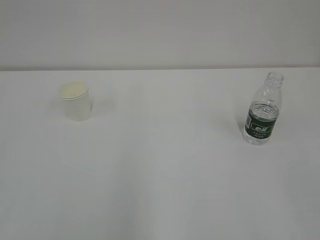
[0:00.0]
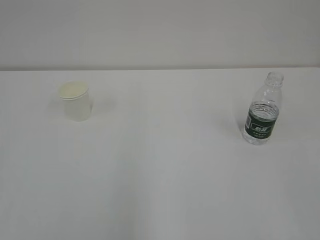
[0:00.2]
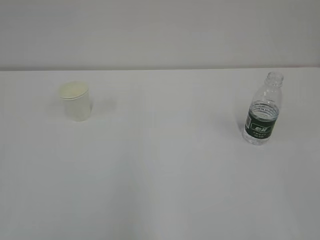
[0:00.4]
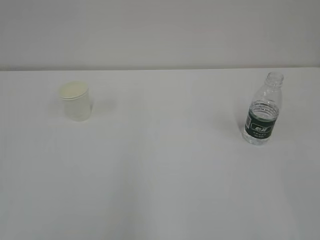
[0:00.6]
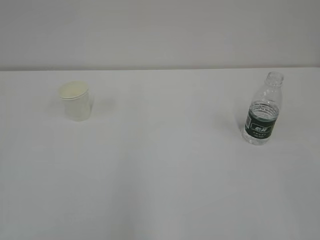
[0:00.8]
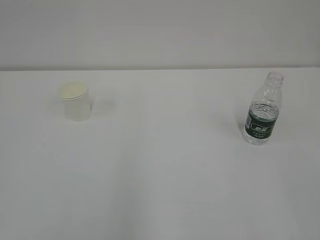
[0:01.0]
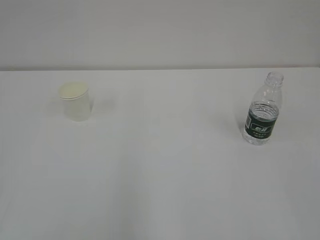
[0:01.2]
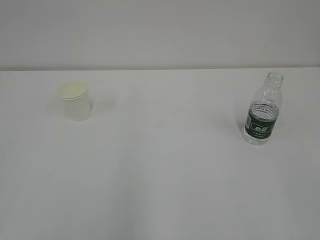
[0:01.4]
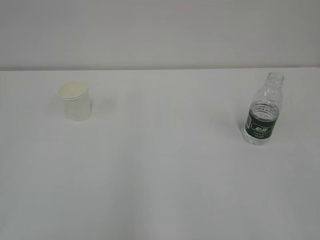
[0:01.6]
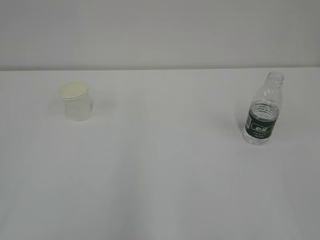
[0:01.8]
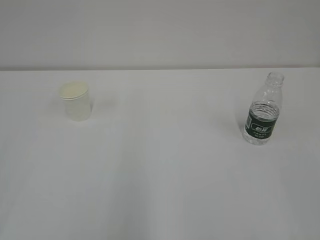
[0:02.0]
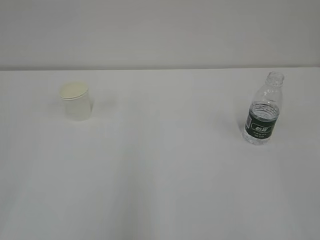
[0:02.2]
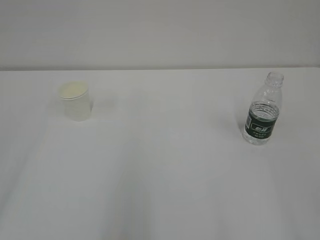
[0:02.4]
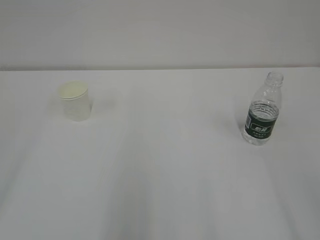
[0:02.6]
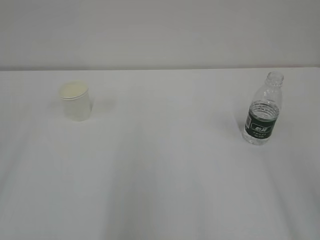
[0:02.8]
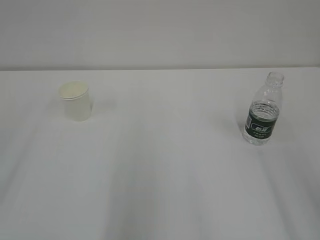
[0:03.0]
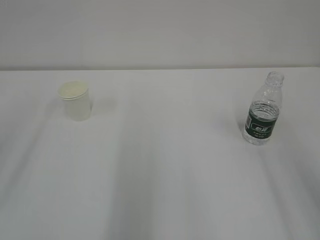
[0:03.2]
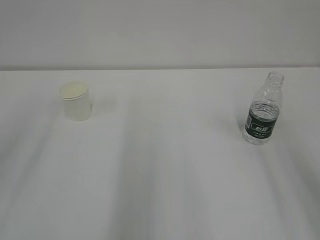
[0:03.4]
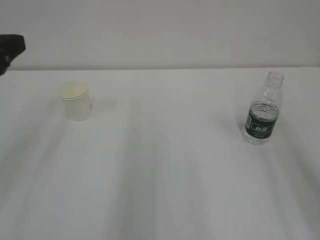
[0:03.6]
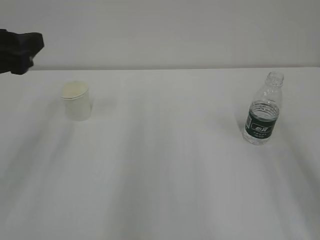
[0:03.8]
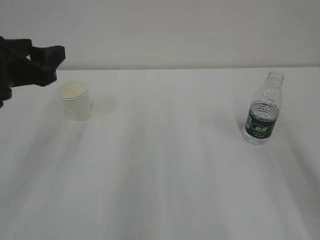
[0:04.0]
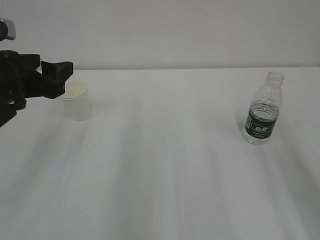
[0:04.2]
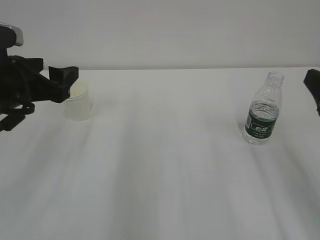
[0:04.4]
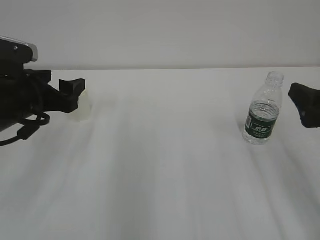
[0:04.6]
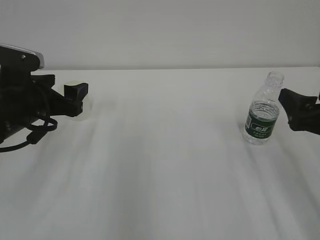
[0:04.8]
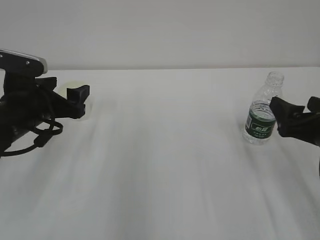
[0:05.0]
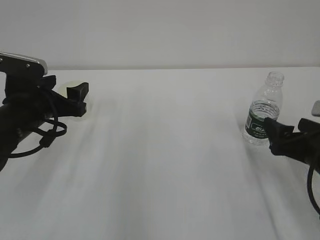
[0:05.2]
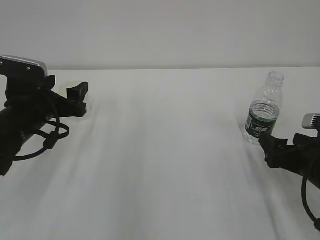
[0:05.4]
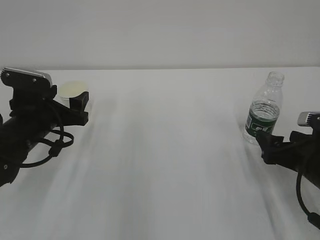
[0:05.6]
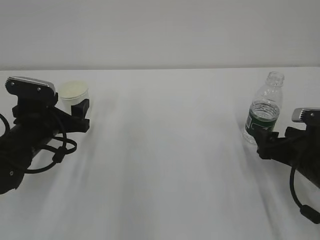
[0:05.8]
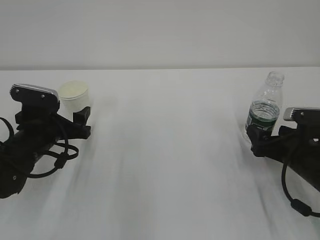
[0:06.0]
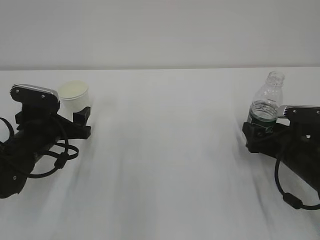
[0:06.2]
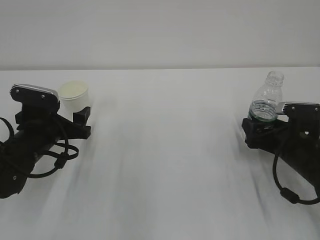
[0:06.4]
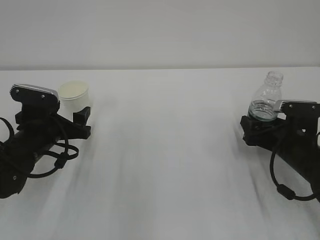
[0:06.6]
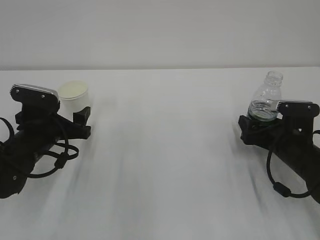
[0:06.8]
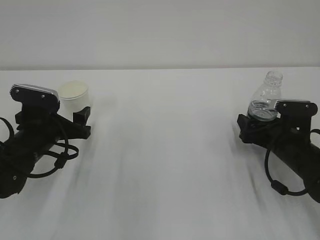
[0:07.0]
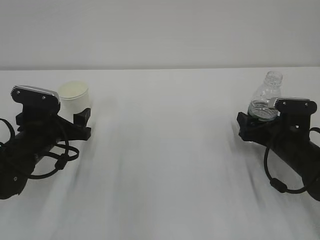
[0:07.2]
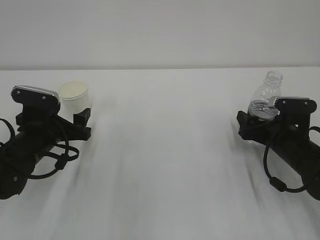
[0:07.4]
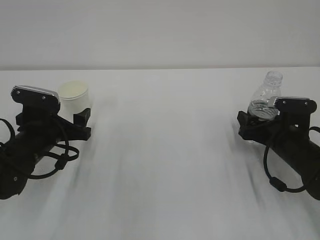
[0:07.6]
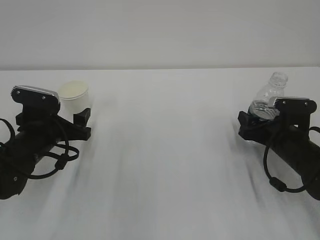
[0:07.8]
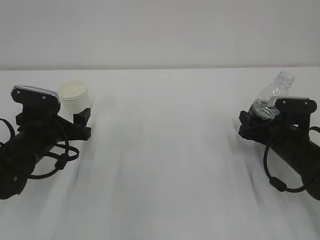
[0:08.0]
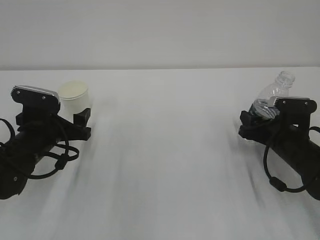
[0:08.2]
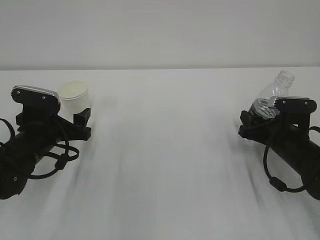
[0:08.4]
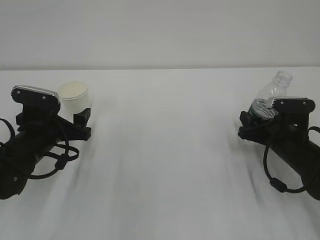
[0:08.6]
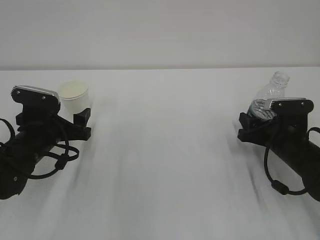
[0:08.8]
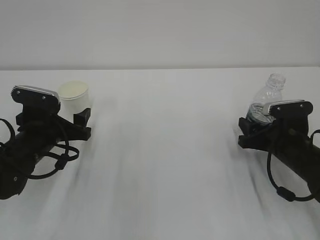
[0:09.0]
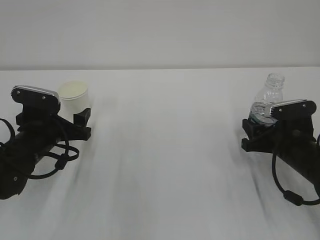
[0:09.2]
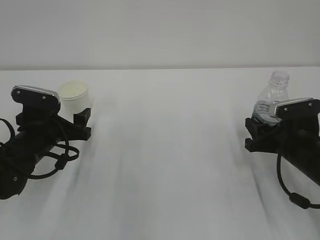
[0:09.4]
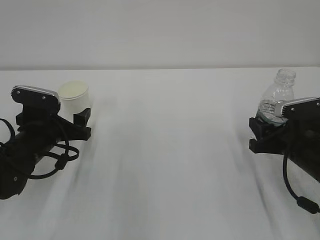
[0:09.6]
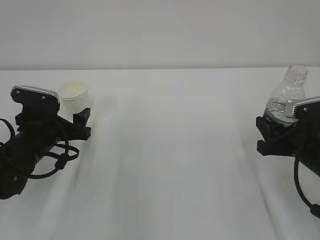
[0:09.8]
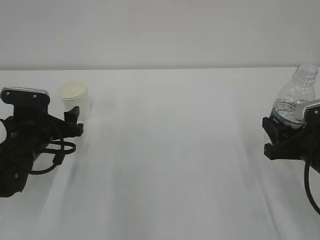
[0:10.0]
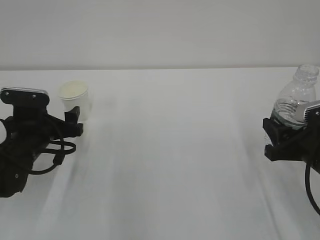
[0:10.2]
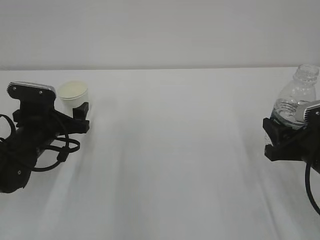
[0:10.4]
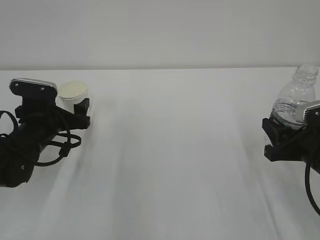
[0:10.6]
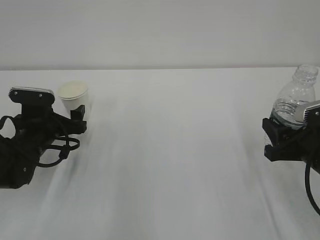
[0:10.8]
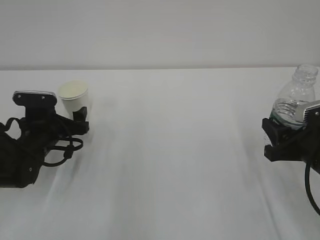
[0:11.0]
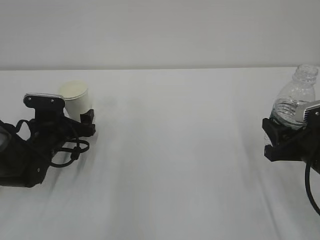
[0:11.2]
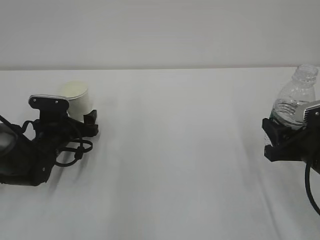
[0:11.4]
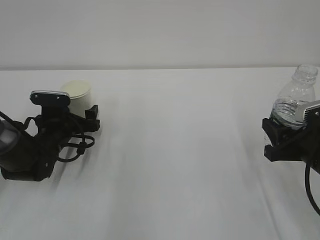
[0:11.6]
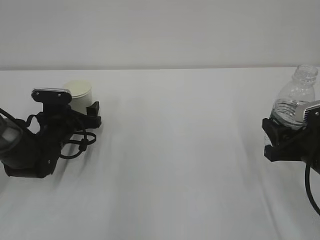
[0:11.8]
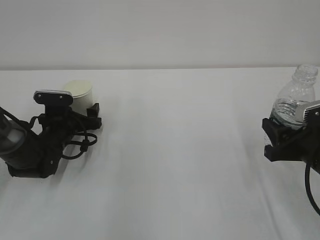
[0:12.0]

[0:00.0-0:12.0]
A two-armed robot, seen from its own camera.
0:03.0 to 0:04.4: The left gripper goes some 20 cm forward, downward and to the right.
0:04.4 to 0:06.0: The left gripper goes some 15 cm downward. The right gripper shifts approximately 20 cm downward and forward.
0:06.0 to 0:07.6: The right gripper shifts roughly 5 cm forward.
0:07.6 to 0:09.0: The right gripper closes.
0:09.0 to 0:10.4: The left gripper opens its fingers. Meanwhile the right gripper is displaced backward and upward by approximately 10 cm.
0:10.4 to 0:12.0: The left gripper shifts about 10 cm forward and downward.

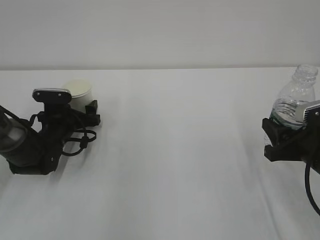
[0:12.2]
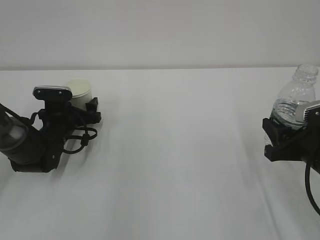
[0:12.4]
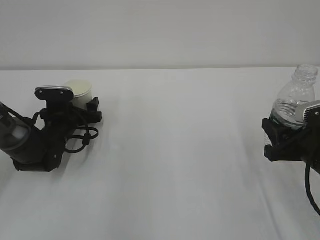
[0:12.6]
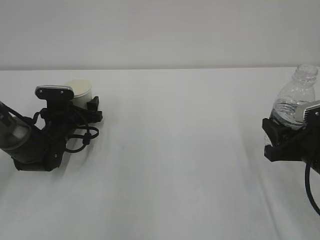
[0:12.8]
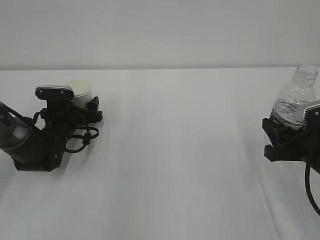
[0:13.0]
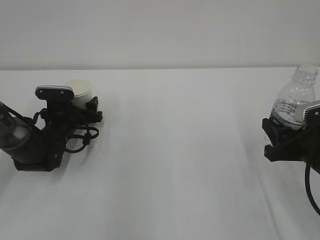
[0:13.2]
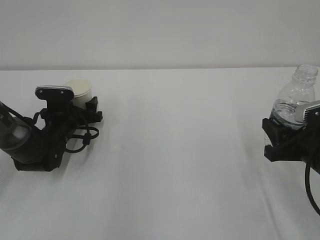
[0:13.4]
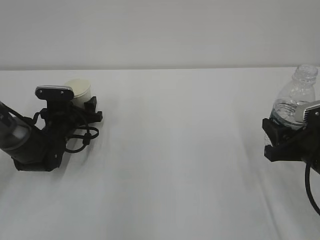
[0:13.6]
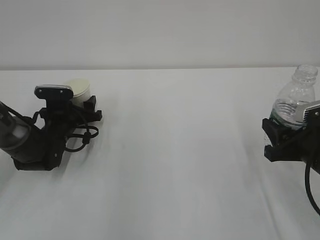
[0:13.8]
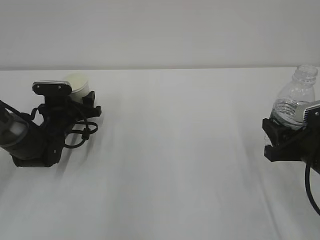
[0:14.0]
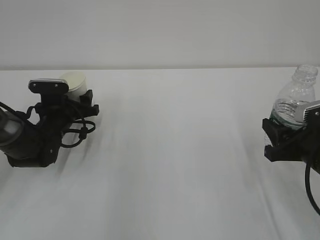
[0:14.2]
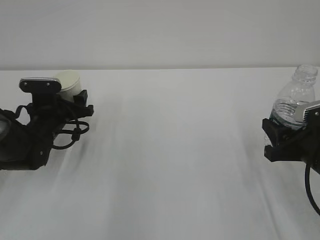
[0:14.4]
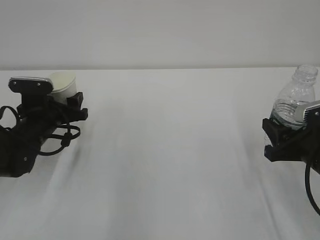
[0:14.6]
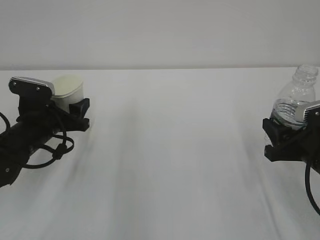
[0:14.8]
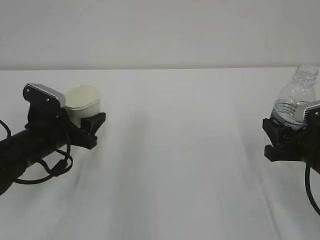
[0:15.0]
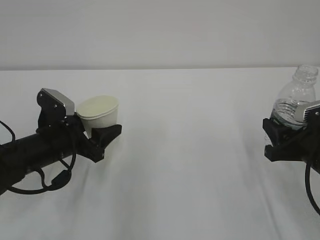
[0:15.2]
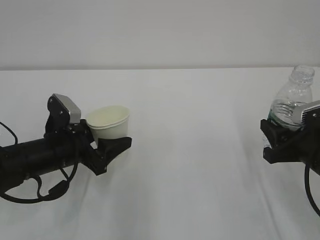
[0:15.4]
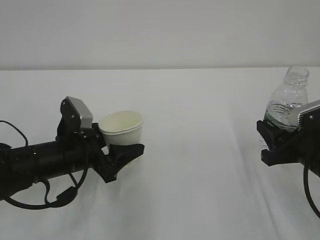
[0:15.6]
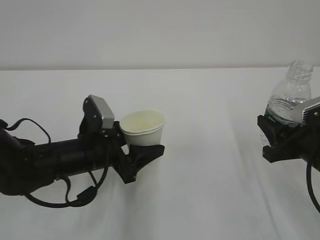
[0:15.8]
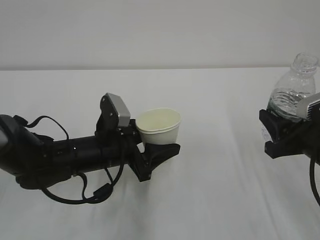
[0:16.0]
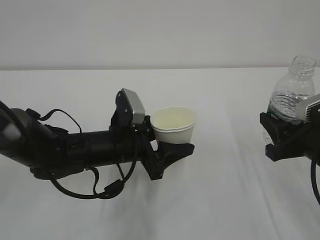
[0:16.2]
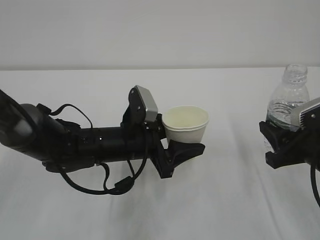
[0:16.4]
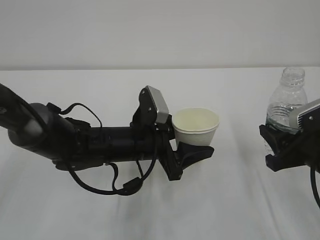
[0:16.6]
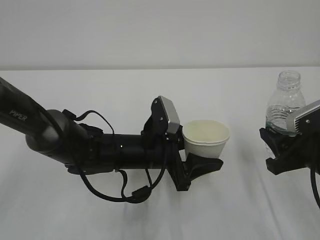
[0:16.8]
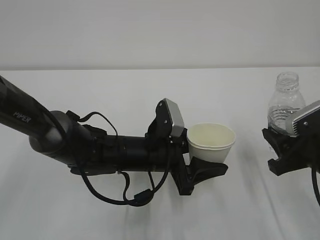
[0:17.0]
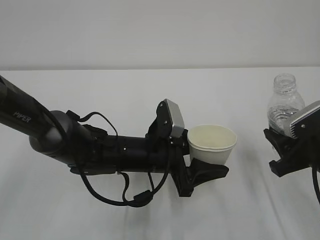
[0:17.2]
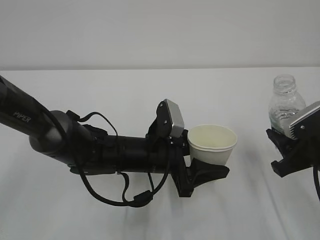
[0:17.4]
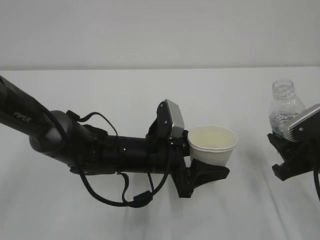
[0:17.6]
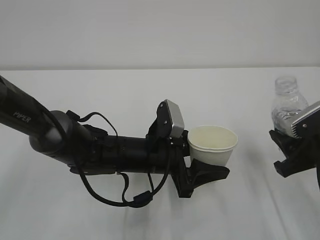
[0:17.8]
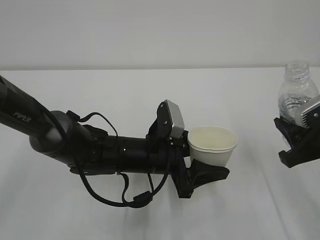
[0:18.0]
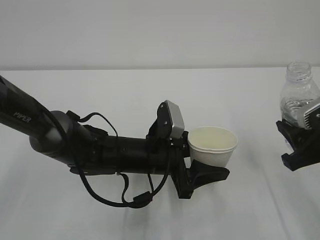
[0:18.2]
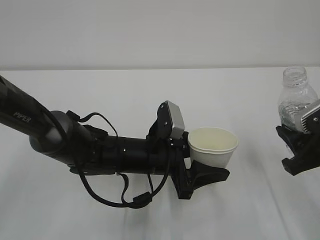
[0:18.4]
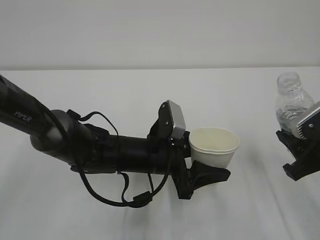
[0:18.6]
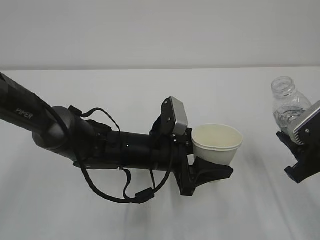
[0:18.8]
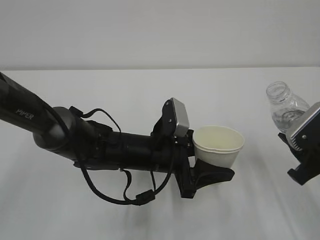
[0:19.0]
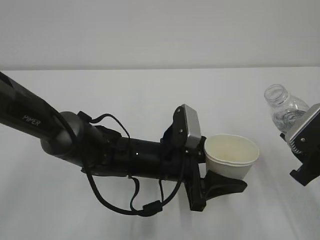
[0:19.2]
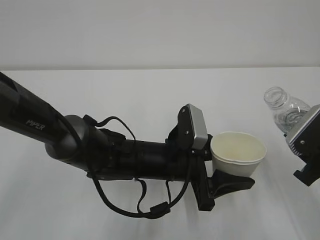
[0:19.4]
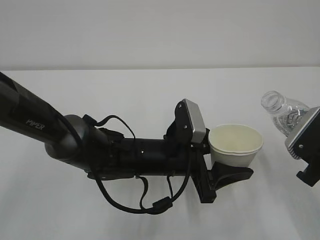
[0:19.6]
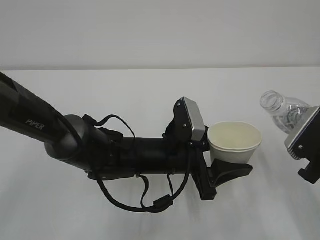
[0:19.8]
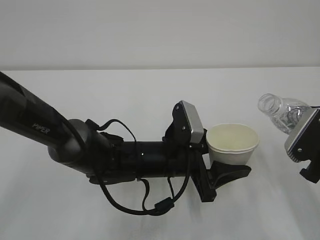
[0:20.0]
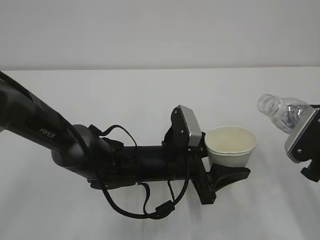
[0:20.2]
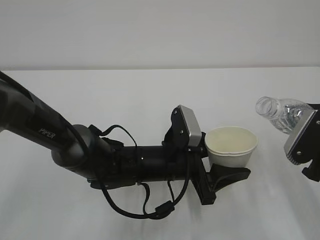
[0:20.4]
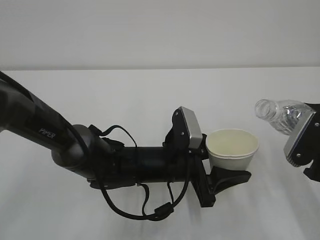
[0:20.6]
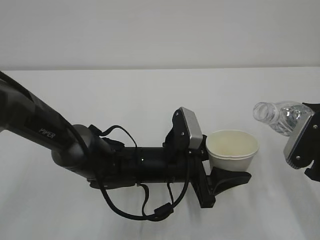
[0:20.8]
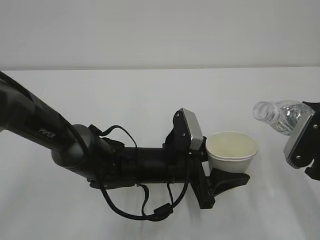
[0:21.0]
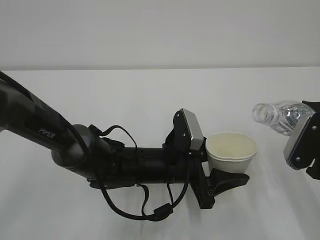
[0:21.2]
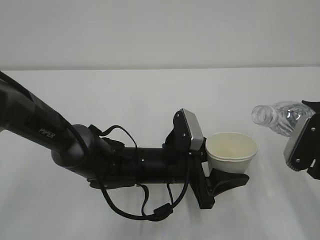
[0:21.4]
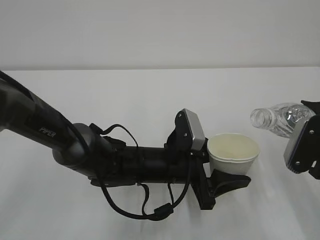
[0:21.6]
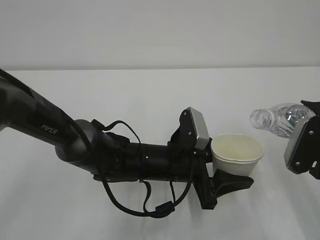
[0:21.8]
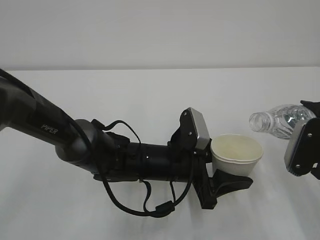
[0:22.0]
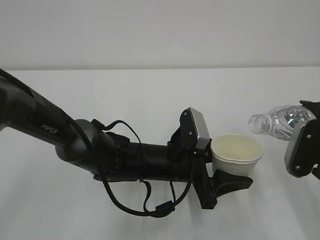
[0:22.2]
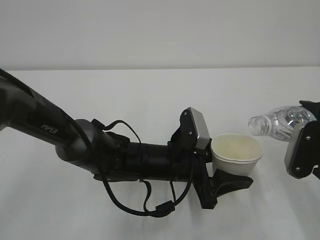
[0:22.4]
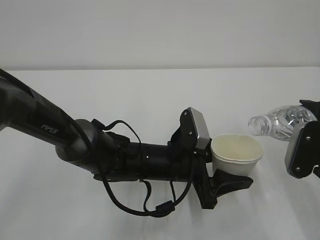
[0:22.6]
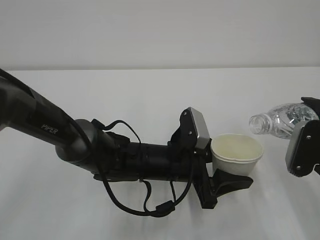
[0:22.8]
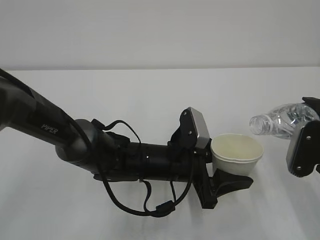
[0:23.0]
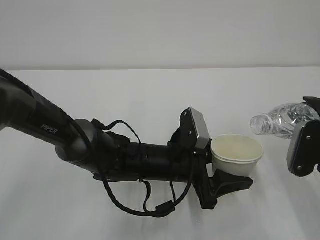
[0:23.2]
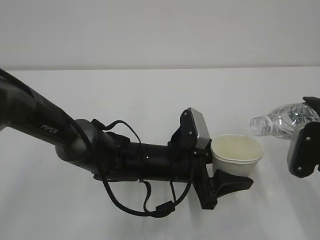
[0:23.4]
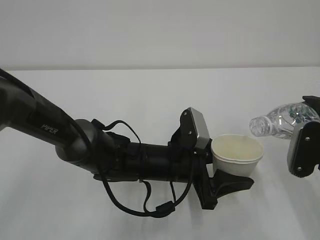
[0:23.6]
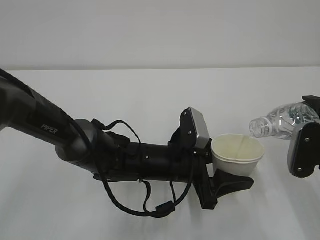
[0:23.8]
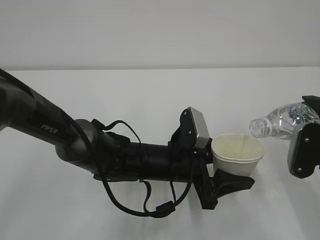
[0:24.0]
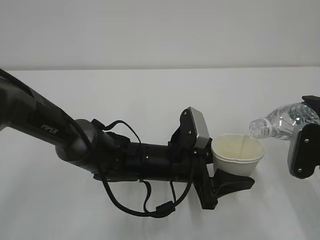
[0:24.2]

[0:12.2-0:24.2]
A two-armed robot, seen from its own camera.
0:12.2 to 0:13.8: The left gripper closes its fingers.
0:13.8 to 0:15.2: The left gripper is displaced backward and upward by approximately 15 cm.
0:15.2 to 0:16.6: The left gripper moves to the right, roughly 15 cm.
0:16.6 to 0:18.2: The grippers stay close to where they were, moving slightly.
0:19.8 to 0:21.2: The grippers make only small movements.
0:21.2 to 0:24.2: The grippers make only small movements.
